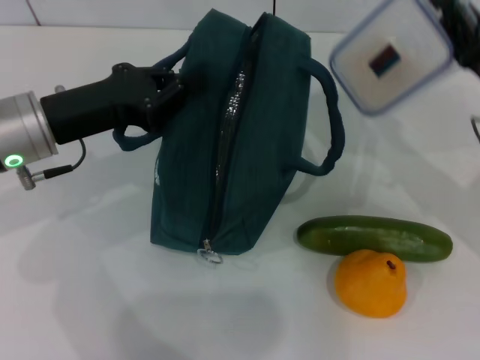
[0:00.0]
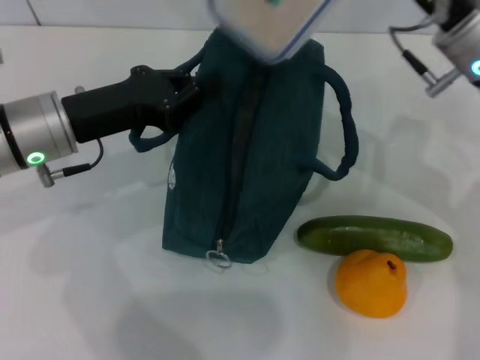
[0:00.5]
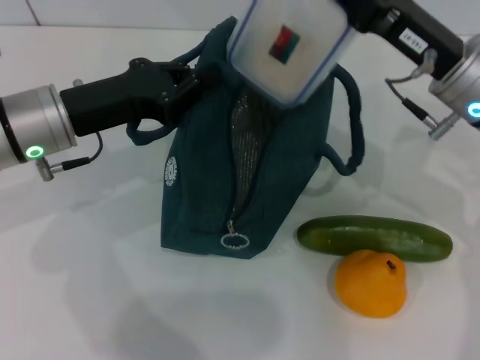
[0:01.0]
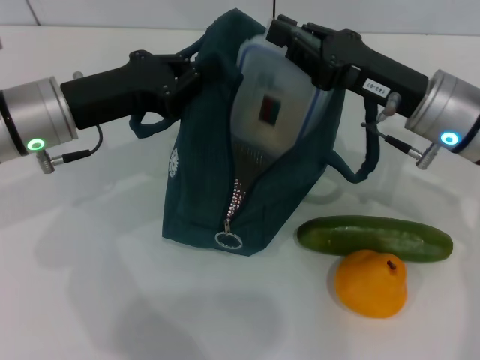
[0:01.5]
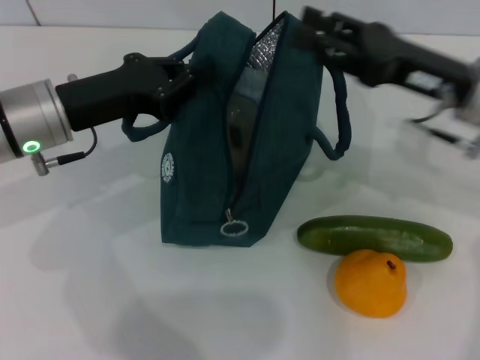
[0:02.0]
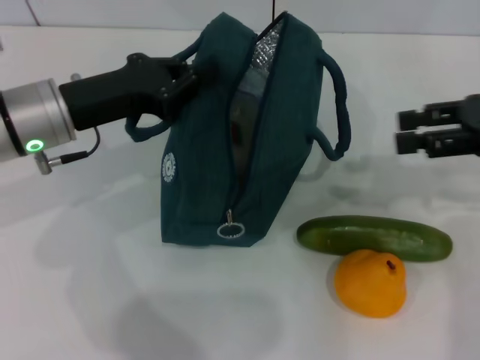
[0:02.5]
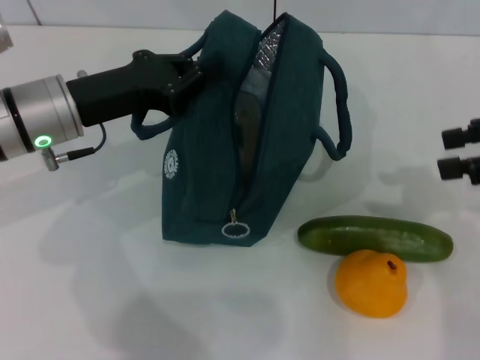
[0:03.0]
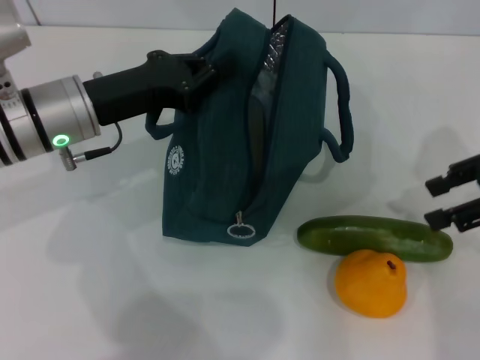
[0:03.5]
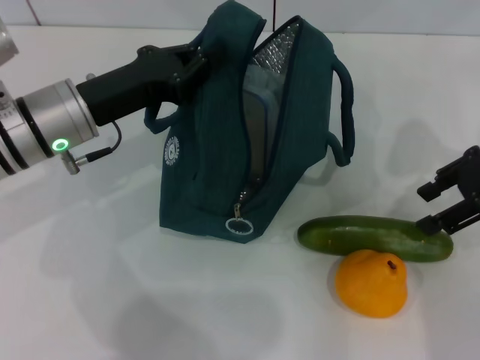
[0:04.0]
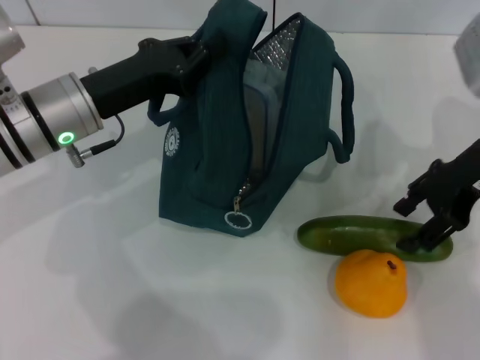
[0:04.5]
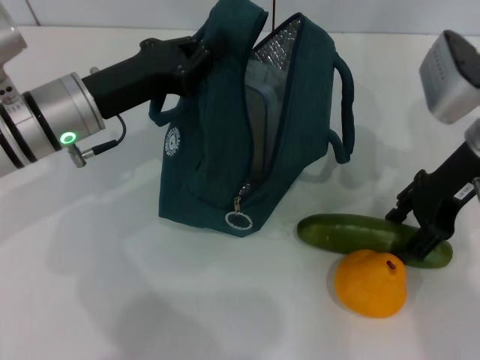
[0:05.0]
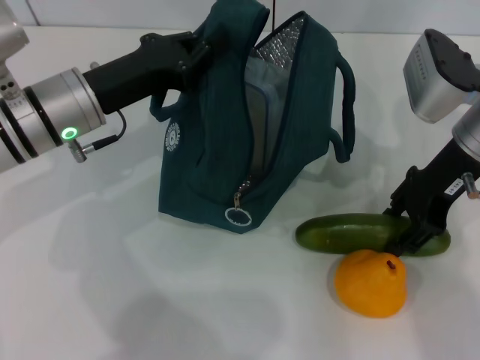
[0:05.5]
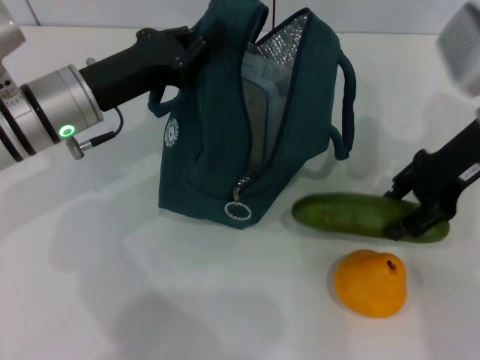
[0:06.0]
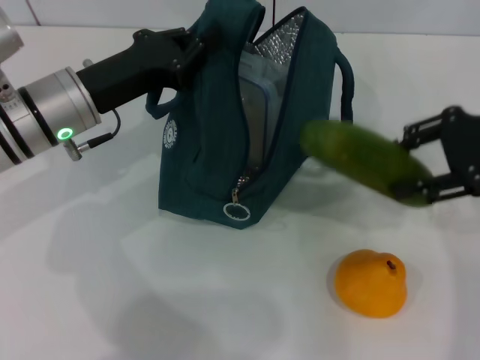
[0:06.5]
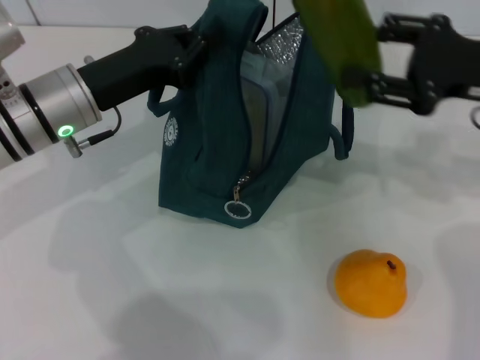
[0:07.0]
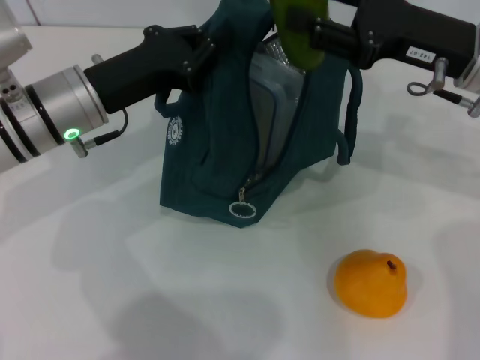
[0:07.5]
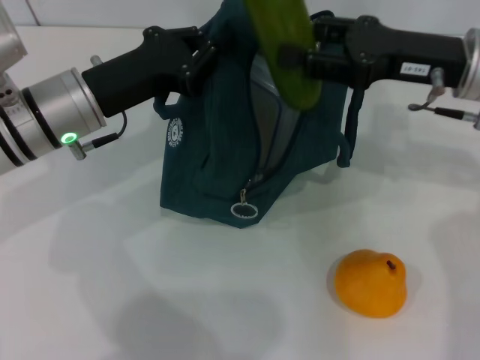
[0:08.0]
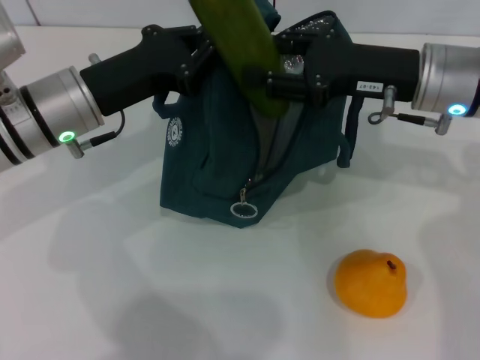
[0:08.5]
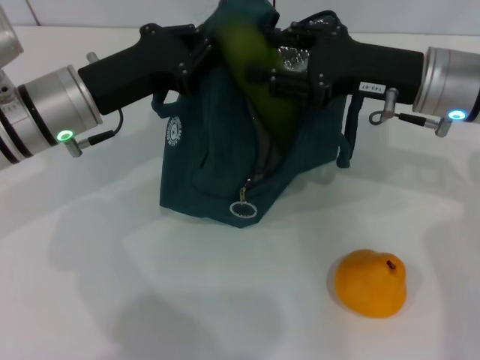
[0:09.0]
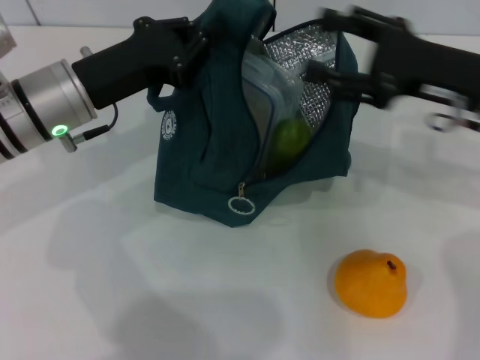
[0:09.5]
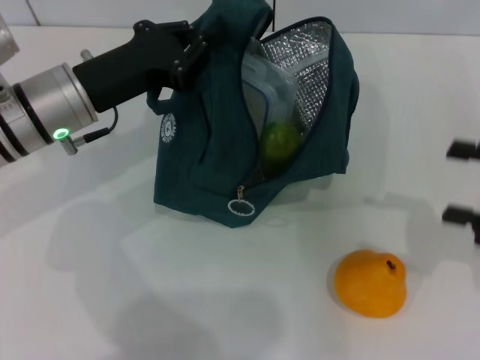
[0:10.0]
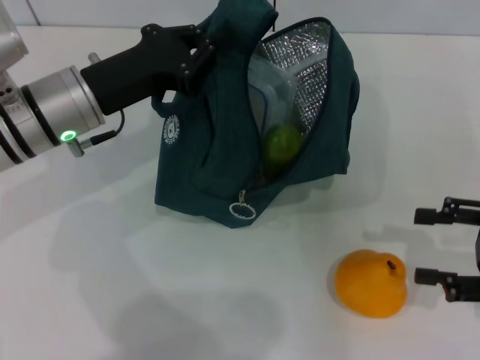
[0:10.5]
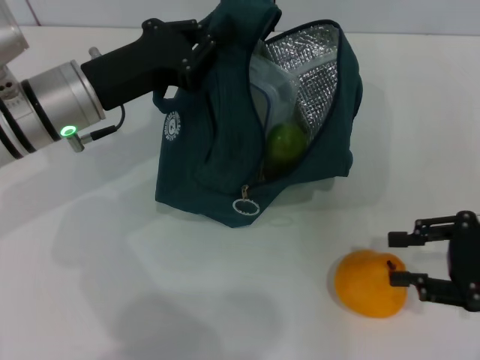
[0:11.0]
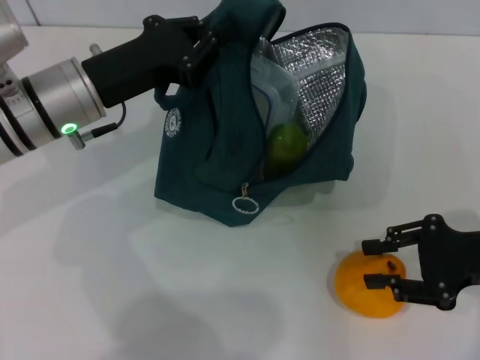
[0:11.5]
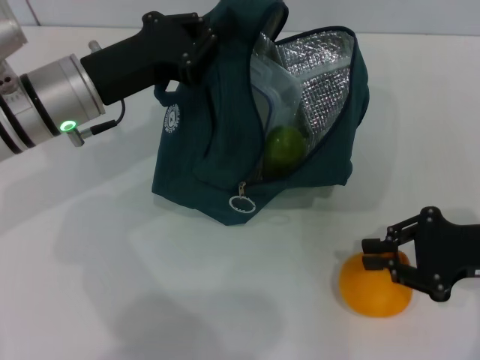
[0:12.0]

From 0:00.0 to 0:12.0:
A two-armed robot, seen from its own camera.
Step, from 0:00.0 to 0:01.5: Place the lunch box into the lunch bag with your right hand.
Step, from 0:02.0 to 0:05.0: Pick up the cucumber with your right hand.
Step, from 0:05.5 to 0:09.0: Put the cucumber into the lunch bag with your right hand.
Step, from 0:09.5 to 0:12.0: Grab the pear with your right hand.
From 0:02.0 to 0:04.0: The right gripper moves to the right, roughly 5 cm.
From 0:04.0 to 0:06.0: The right gripper heads to the left, covering about 5 cm.
From 0:06.0 to 0:08.0: The right gripper reaches some 5 cm to the right, then returns.
From 0:08.0 to 0:10.0: The right gripper shifts about 20 cm to the right and backward.
From 0:10.0 to 0:12.0: The right gripper heads to the left and downward, covering some 10 cm, and closes up.

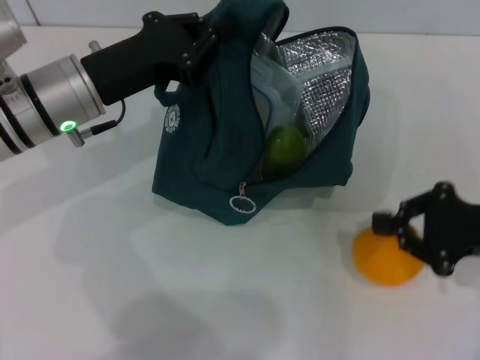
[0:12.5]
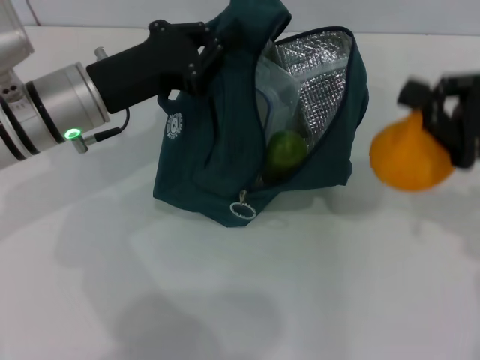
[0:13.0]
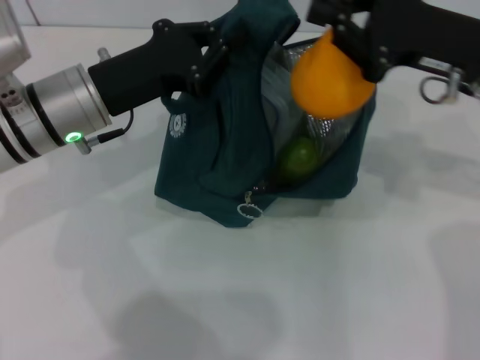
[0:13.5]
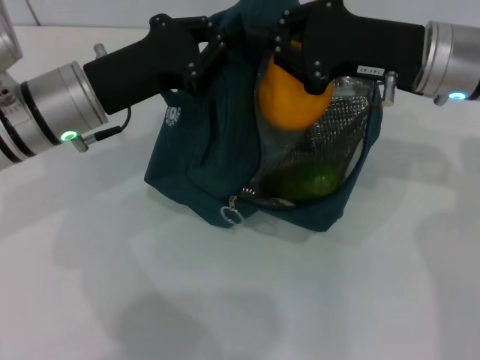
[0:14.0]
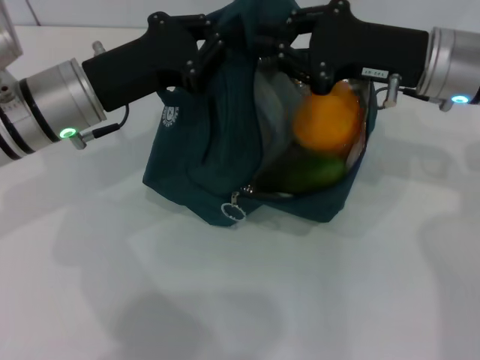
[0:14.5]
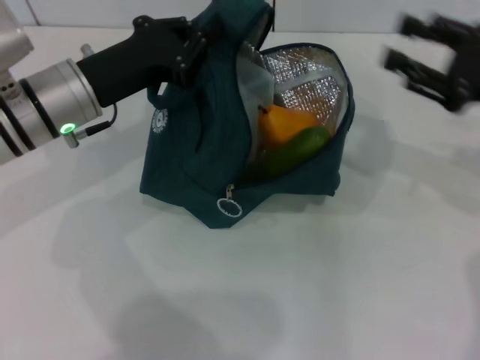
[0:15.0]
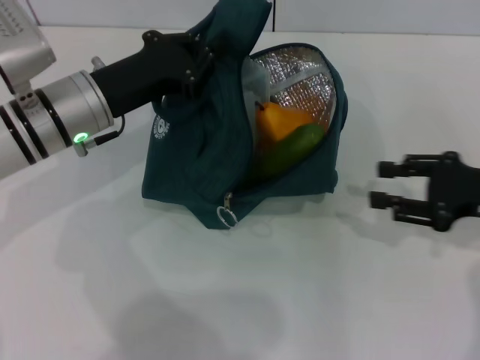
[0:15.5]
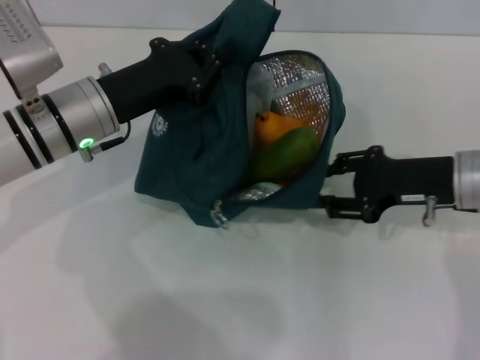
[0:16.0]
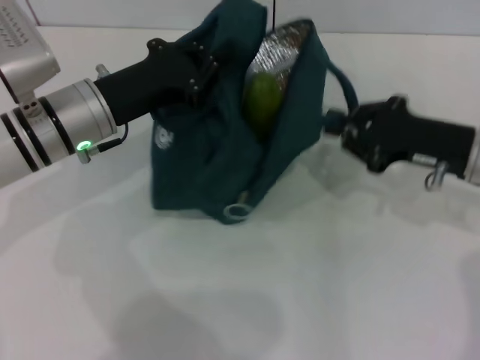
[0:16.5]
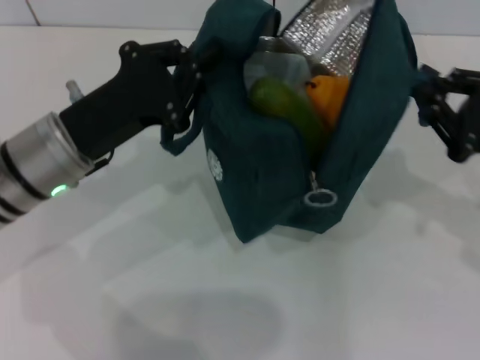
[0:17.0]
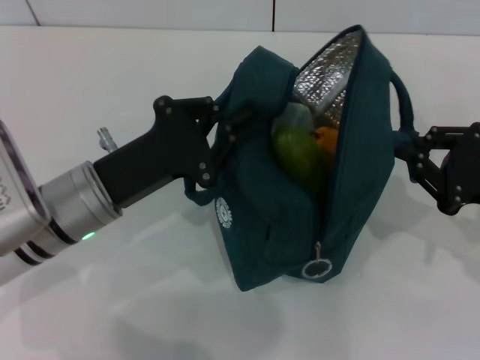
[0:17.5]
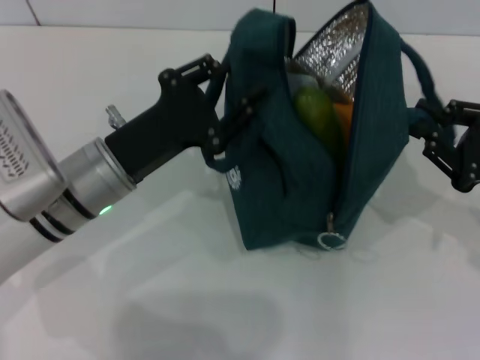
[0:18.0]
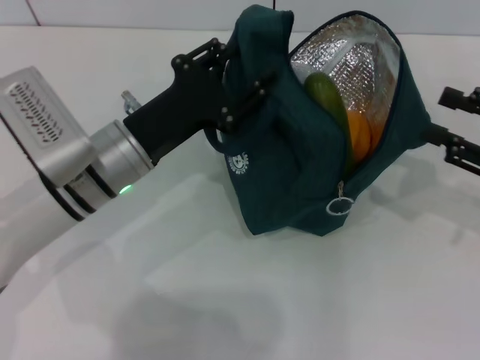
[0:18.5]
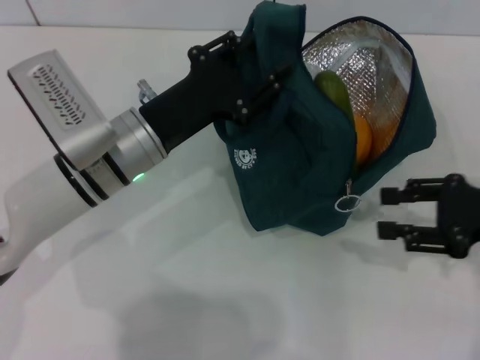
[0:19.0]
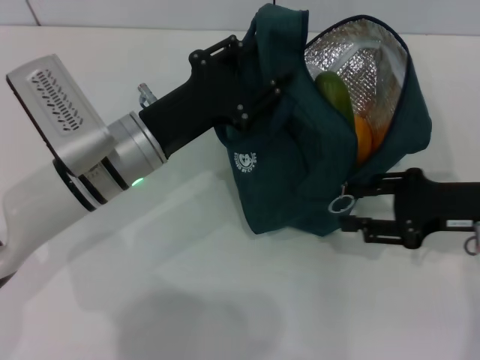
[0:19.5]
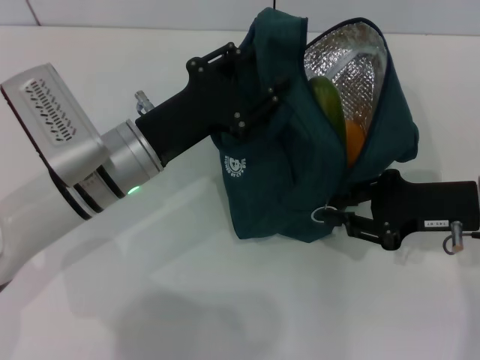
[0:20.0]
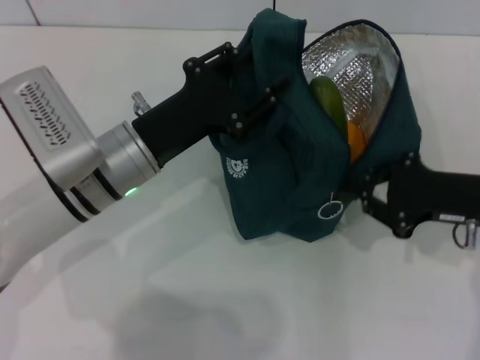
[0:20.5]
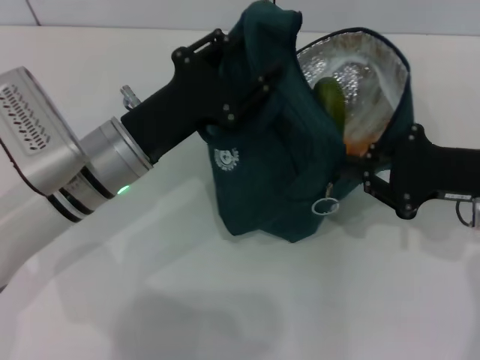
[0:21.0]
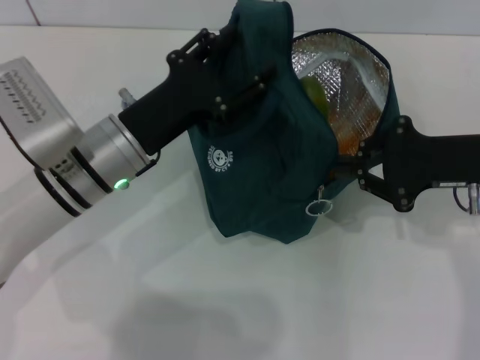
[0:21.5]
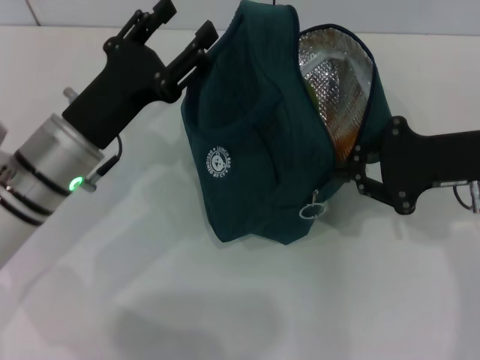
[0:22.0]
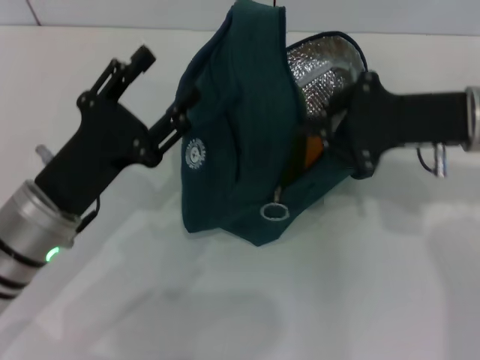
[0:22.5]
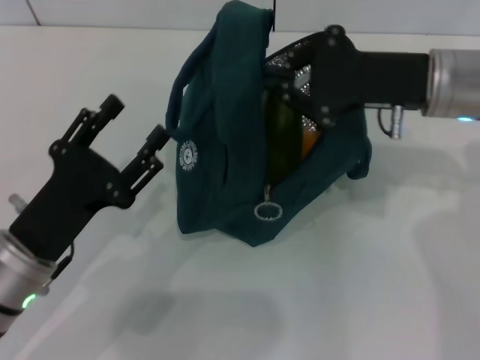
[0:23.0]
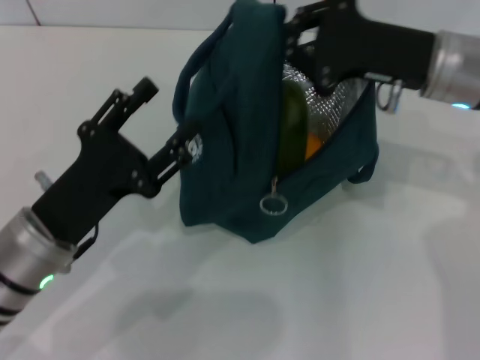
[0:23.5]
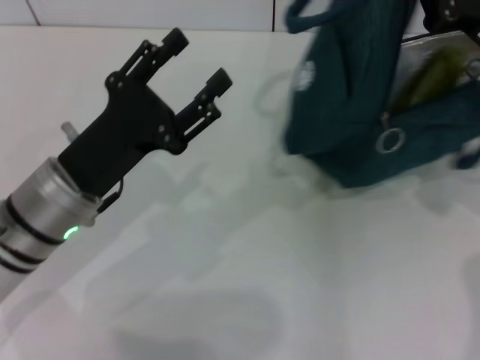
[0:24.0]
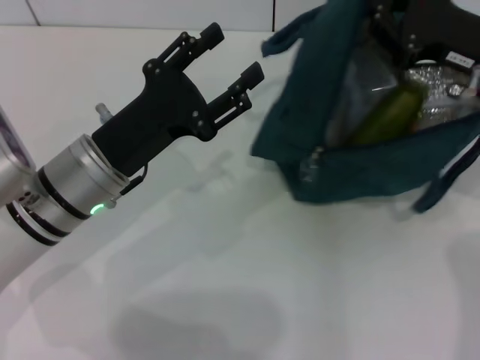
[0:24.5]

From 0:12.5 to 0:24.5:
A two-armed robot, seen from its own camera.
Step, from 0:15.0 to 0:18.0: Hold the lunch bag with your right hand.
Step, from 0:18.5 to 0:21.5: Hold the lunch bag with your left hand.
From 0:12.5 to 0:14.5: The right gripper travels to the left, forward and upward by some 20 cm.
From 0:14.5 to 0:16.5: The right gripper is displaced downward and to the right by approximately 10 cm.
From 0:16.5 to 0:18.5: The right gripper heads to the right and backward, covering roughly 10 cm, while the left gripper changes place by some 5 cm, and opens up.
From 0:18.5 to 0:20.5: The right gripper heads to the left, covering approximately 5 cm, and closes up.
From 0:20.5 to 0:22.5: The left gripper heads backward and to the left, covering some 10 cm, while the right gripper heads upward, covering about 5 cm.
From 0:22.5 to 0:24.5: The left gripper moves some 5 cm.

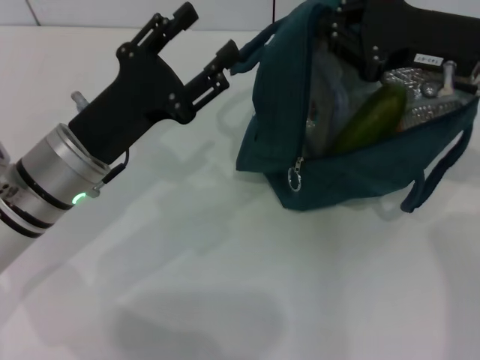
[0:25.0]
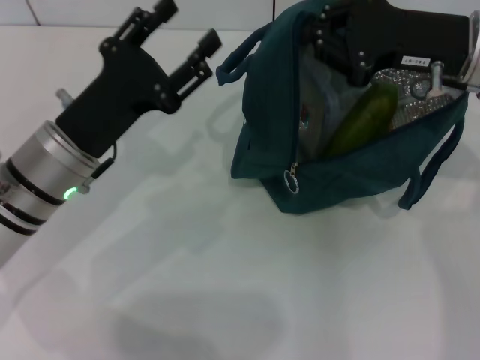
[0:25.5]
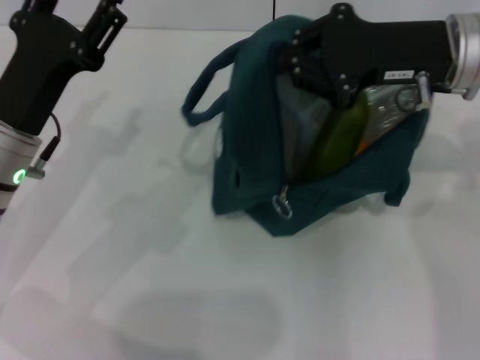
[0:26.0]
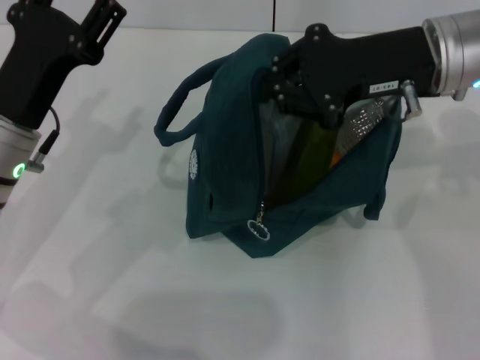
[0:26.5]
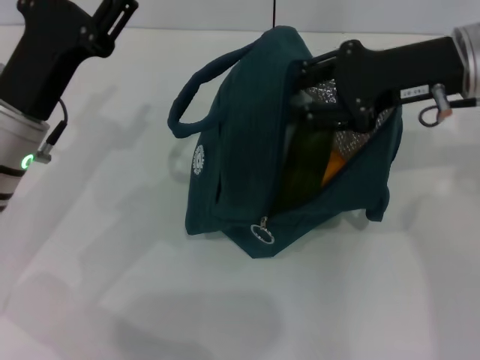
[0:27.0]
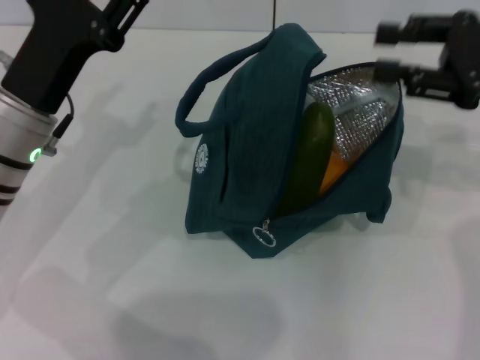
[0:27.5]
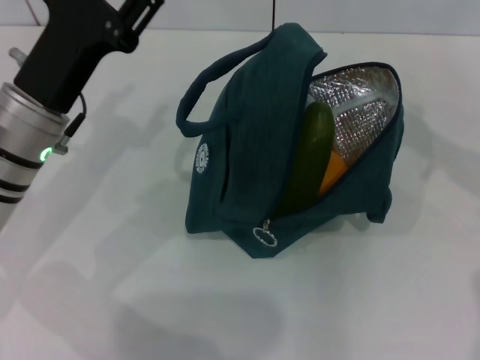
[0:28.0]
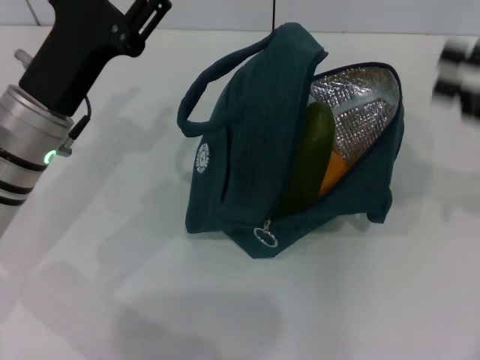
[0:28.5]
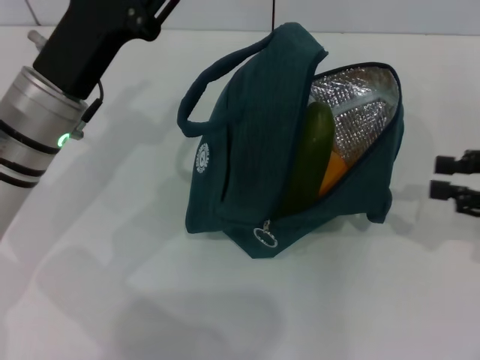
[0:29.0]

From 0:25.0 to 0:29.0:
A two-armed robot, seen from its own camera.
From 0:27.0 to 0:29.0: The right gripper moves to the right, backward and downward, roughly 20 cm.
